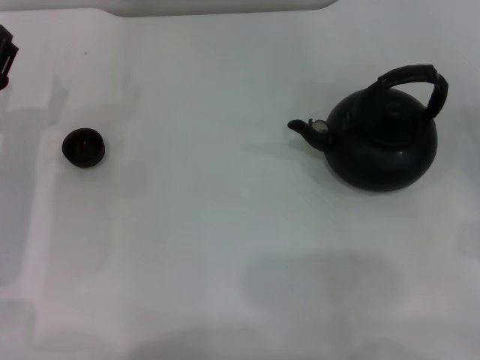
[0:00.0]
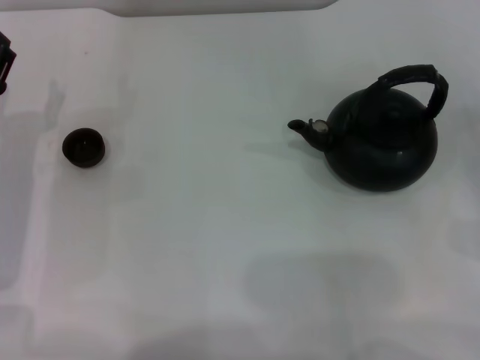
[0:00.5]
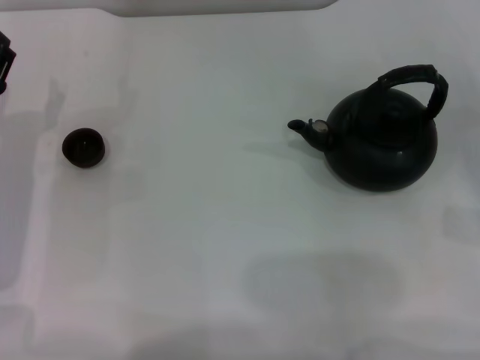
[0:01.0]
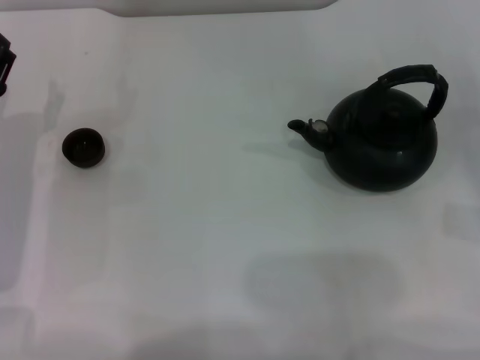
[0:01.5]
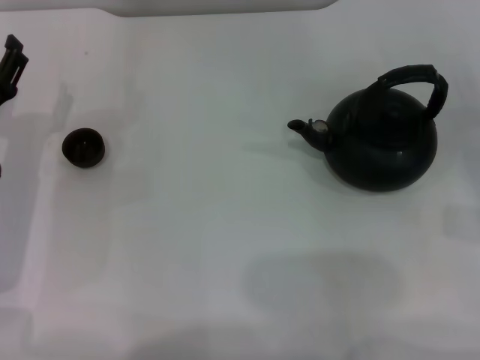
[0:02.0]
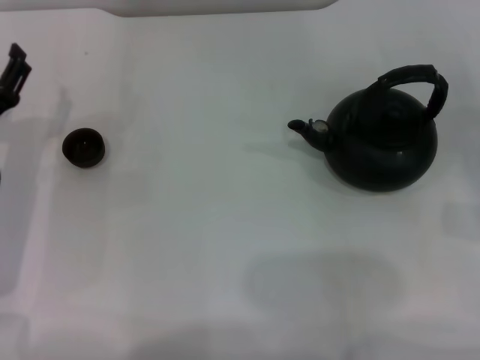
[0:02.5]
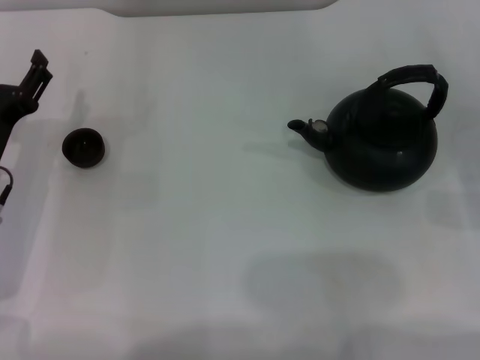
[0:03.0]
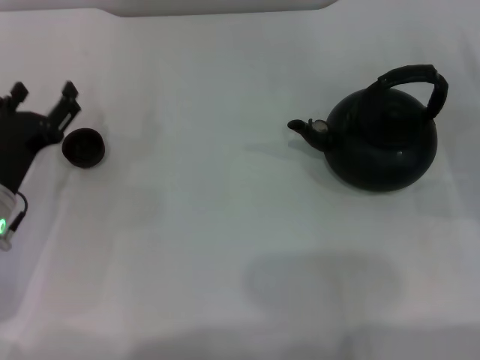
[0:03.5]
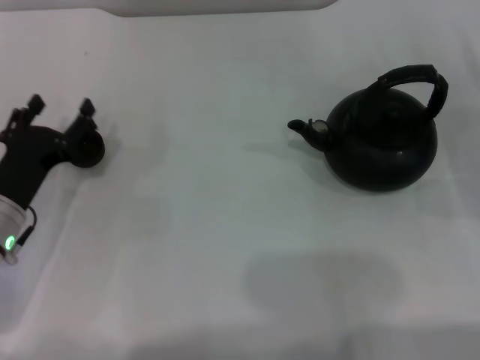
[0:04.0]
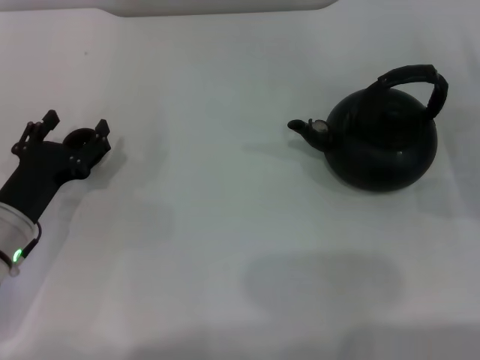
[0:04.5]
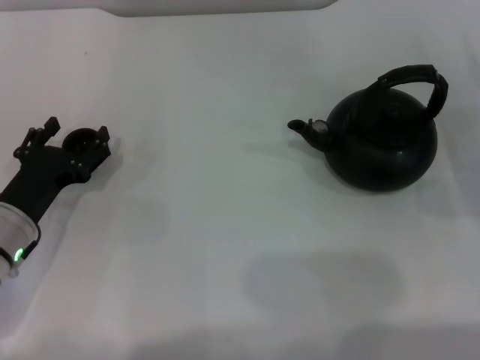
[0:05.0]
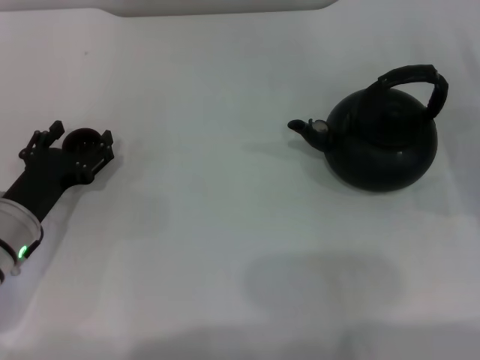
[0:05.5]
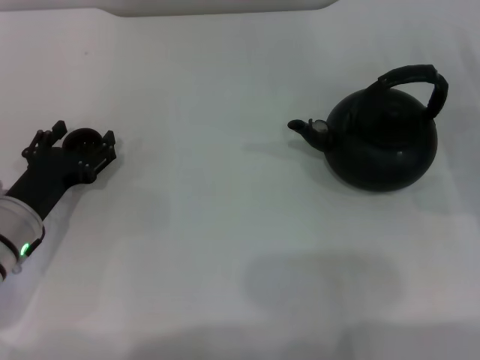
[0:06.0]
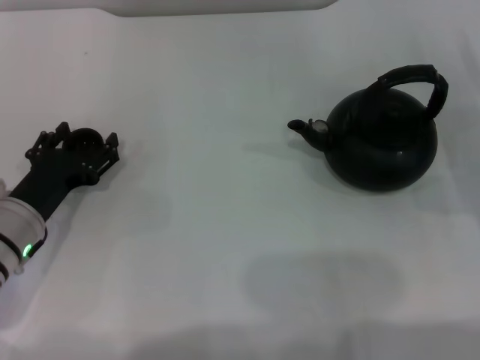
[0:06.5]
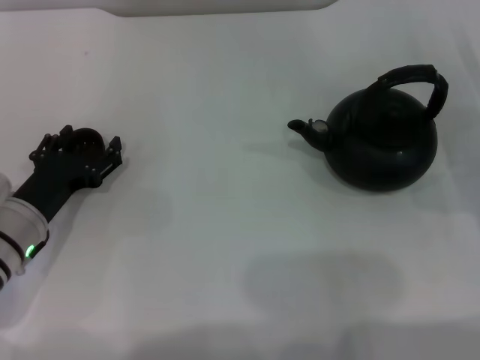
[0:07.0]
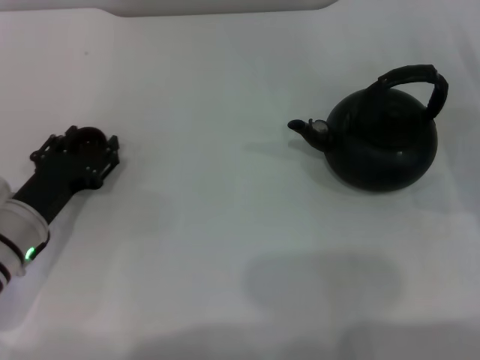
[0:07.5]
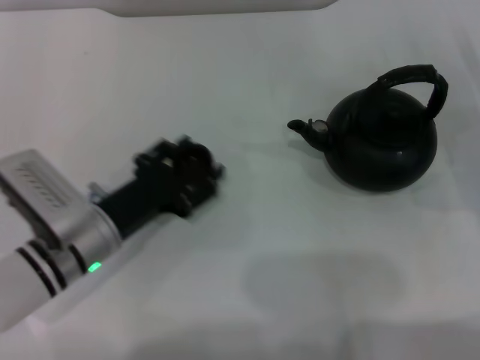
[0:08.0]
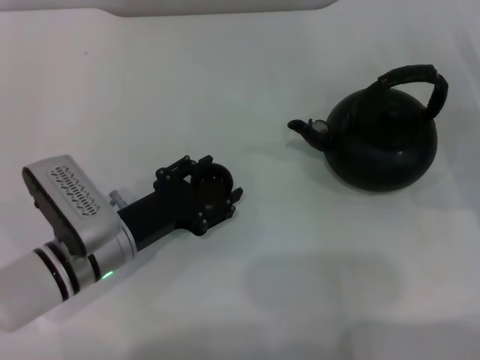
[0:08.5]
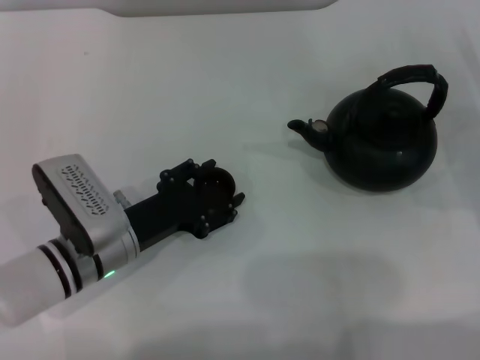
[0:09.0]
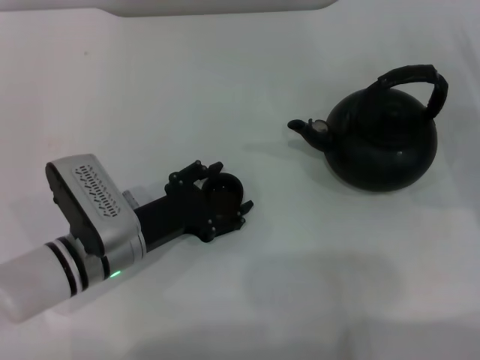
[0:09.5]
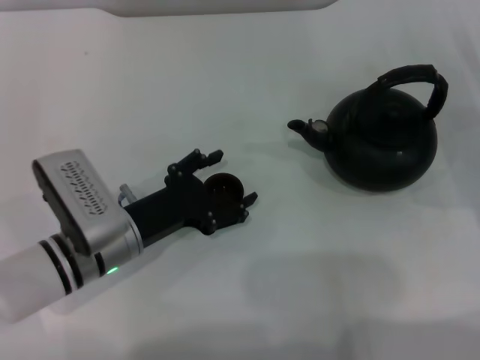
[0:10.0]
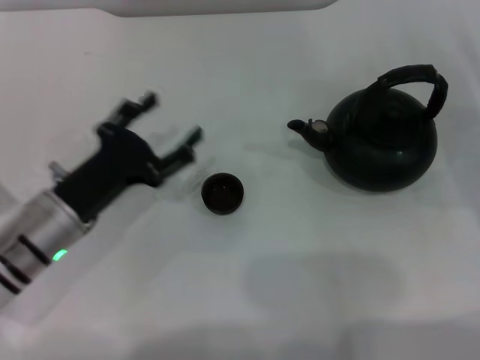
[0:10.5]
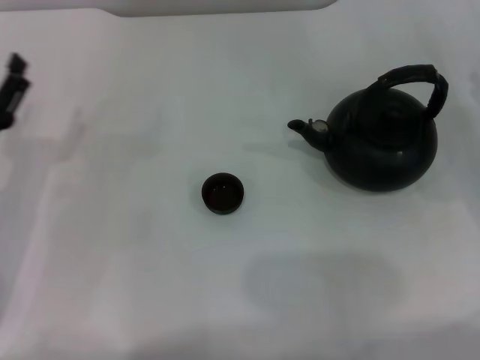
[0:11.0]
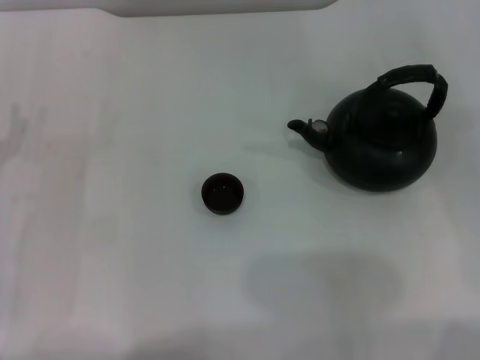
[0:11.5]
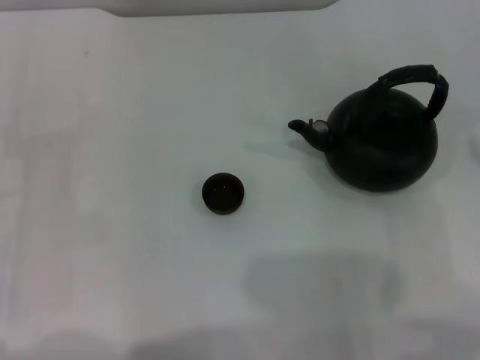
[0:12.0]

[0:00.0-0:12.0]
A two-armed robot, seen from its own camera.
Task of the whole recording: Grasp the handle of the teapot with one hand and pour tea into the teacup.
Step, 0:00.0 to 0:07.5: Pick up the teacup with the left gripper.
Step, 0:08.0 to 0:10.0: Place the teacup in the center of view with the left gripper.
0:02.0 to 0:04.0: The left gripper ends up approximately 5 cm from where it was.
0:04.0 to 0:06.0: The grippers make only small movements.
0:06.0 to 0:08.0: The left gripper moves to the right, about 5 cm, and closes up.
0:08.0 to 0:10.0: The left gripper opens up.
0:10.0 to 0:12.0: The right gripper goes approximately 15 cm upward. The left gripper heads to the left, covering about 15 cm.

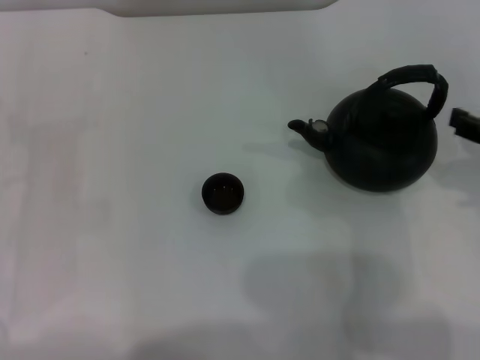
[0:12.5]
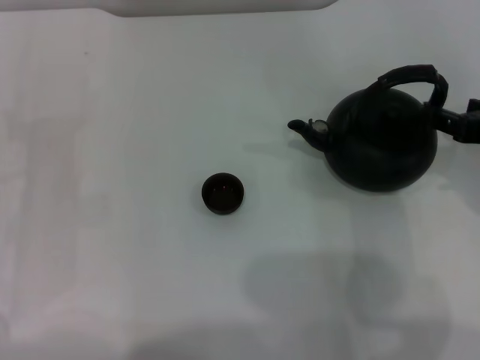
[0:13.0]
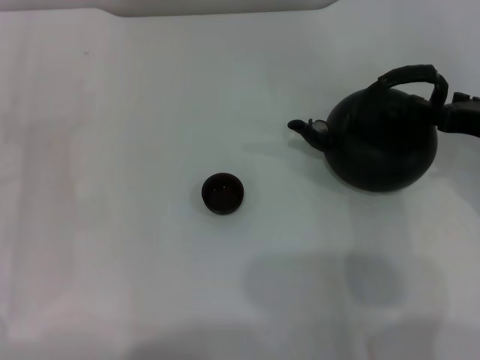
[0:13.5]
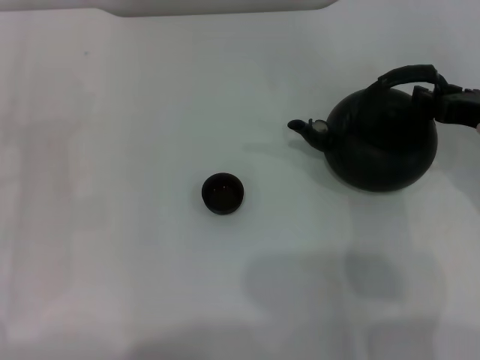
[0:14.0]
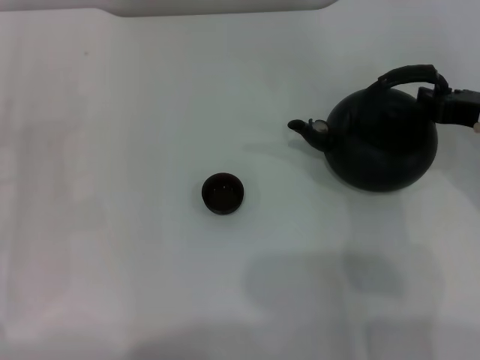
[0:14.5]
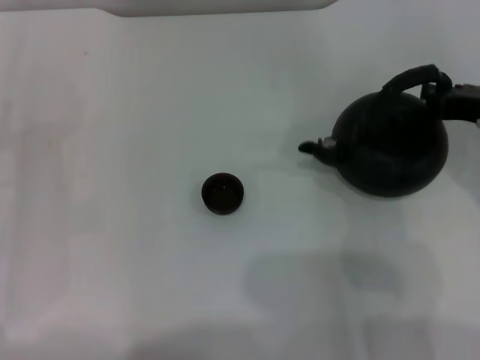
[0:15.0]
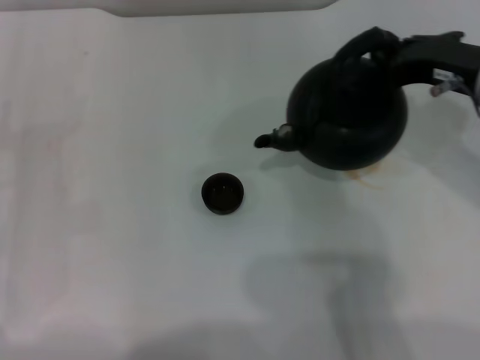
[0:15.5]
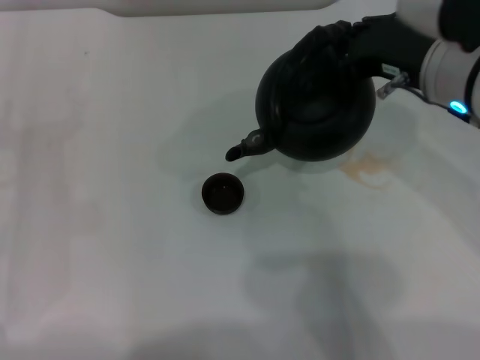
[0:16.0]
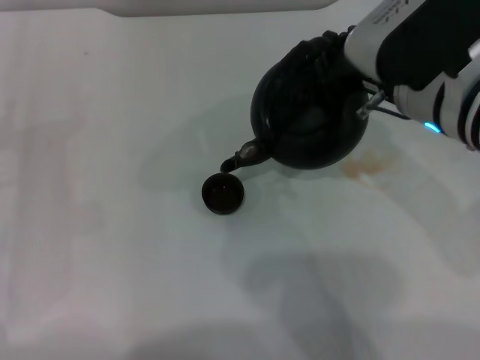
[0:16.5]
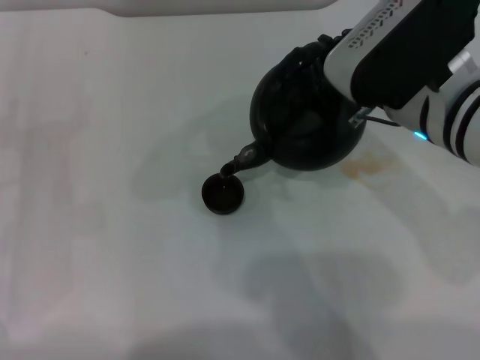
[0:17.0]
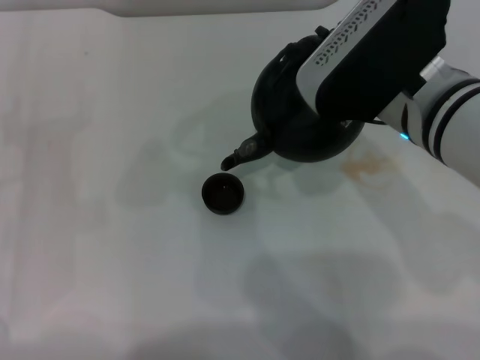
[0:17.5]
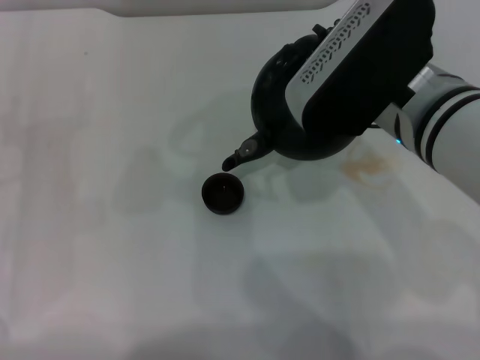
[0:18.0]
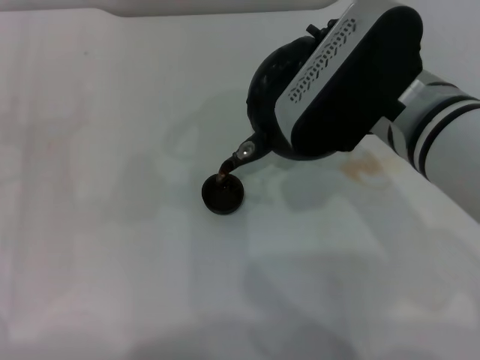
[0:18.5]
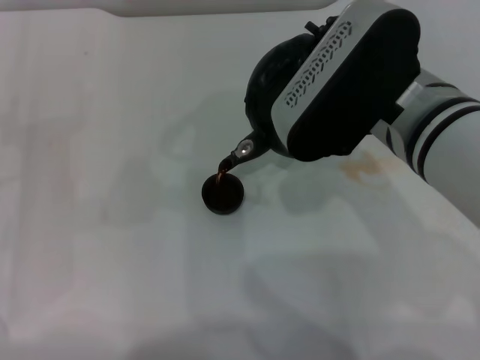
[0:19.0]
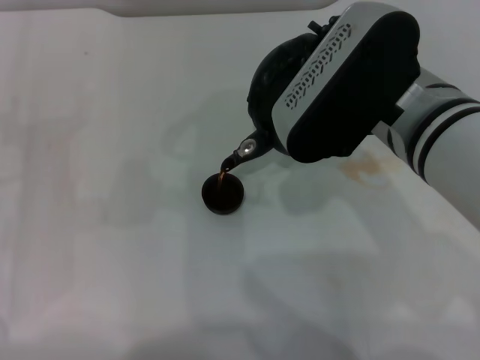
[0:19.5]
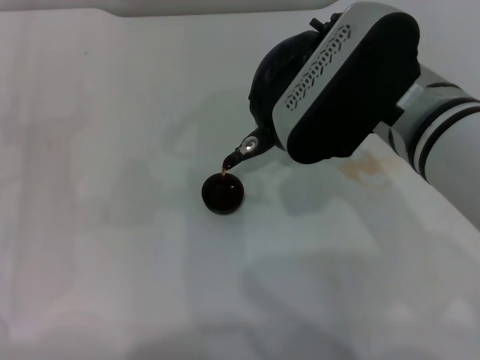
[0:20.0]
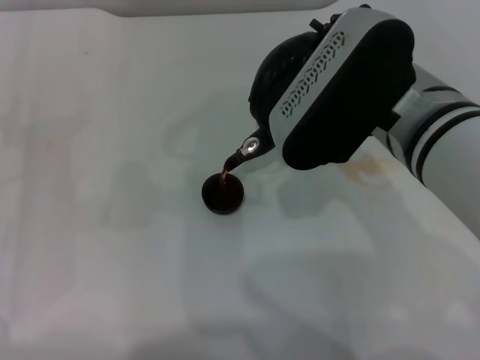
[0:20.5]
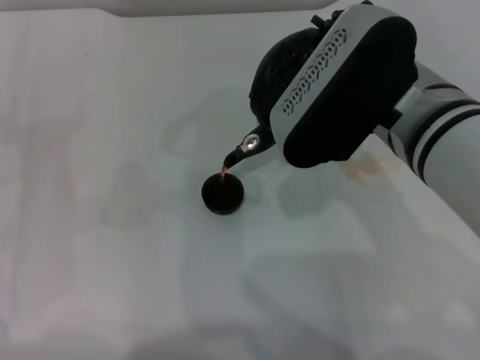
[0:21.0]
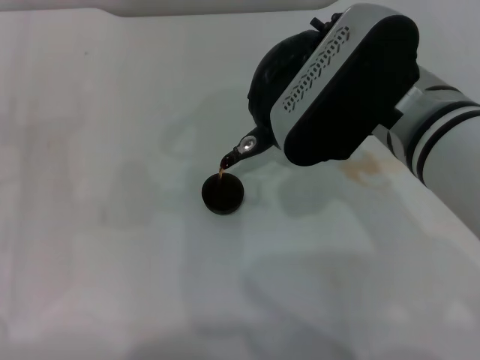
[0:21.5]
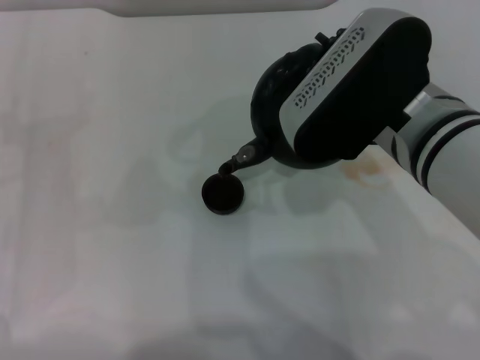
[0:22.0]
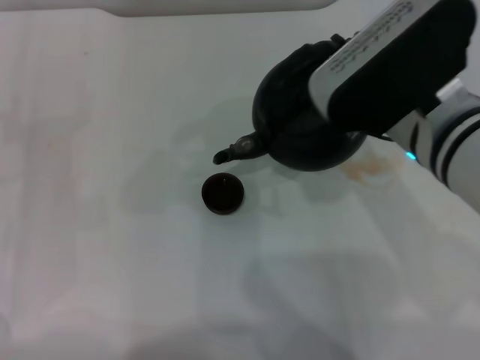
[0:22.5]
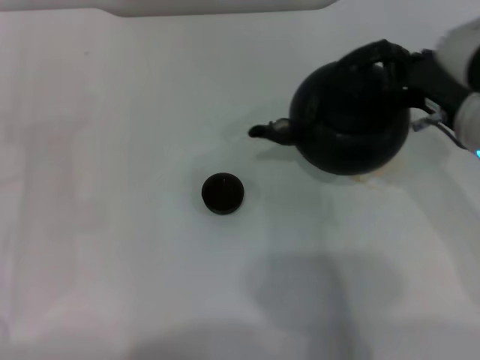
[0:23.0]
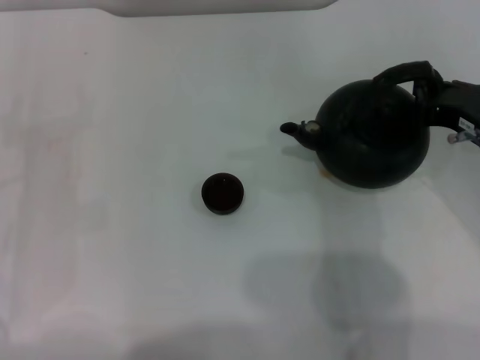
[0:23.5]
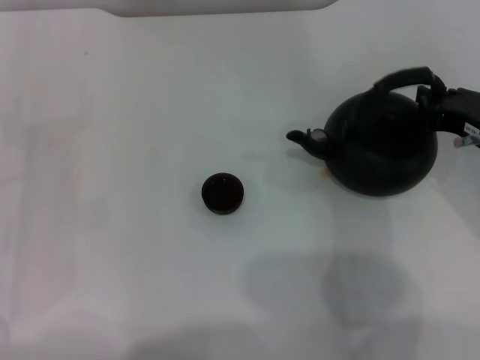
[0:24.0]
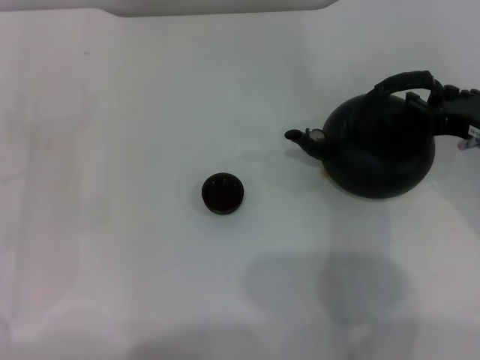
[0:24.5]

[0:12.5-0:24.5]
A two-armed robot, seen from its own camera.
Task of the whole recording: Grasp the handle of the teapot with one hand and pour tea into the teacup.
Step, 0:12.5 to 0:15.0: Pick up the teapot with the right gripper.
Step, 0:15.5 to 0:22.5: Pour tea into the teacup with the right gripper.
0:12.5 to 0:14.5: The right gripper shifts some 5 cm forward, and closes.
0:14.5 to 0:16.5: The right gripper goes some 10 cm to the left.
0:16.5 to 0:18.5: The grippers stay close to where they were, moving slightly.
0:18.5 to 0:20.5: Both grippers stay put.
0:20.5 to 0:22.5: There are only small adjustments of the grippers.
0:22.5 to 0:24.5: The right gripper goes about 10 cm to the right.

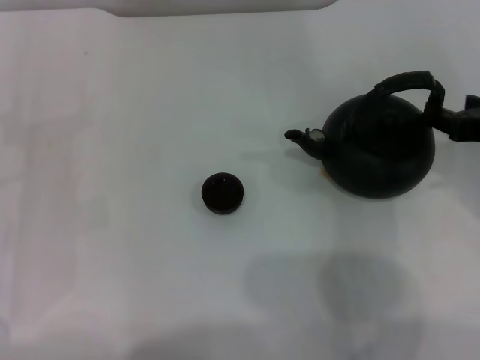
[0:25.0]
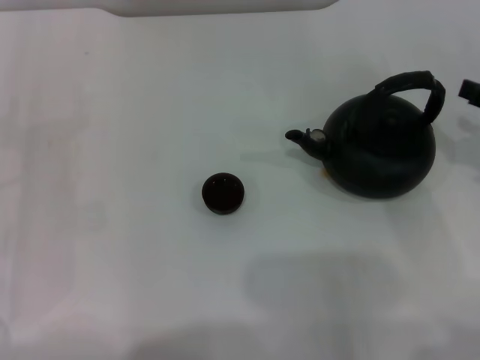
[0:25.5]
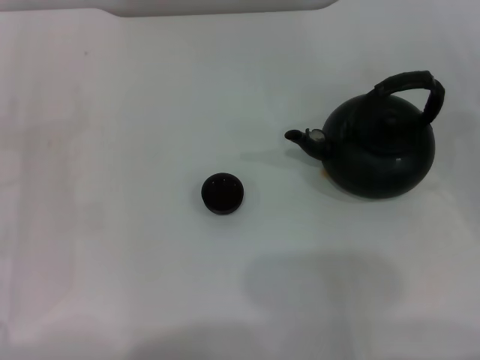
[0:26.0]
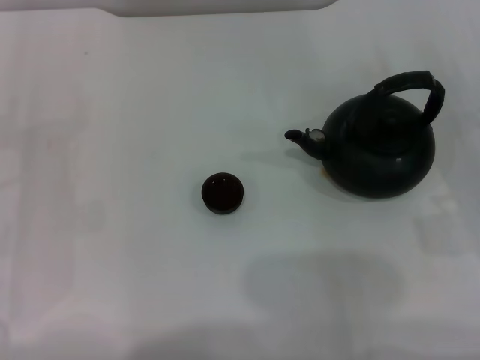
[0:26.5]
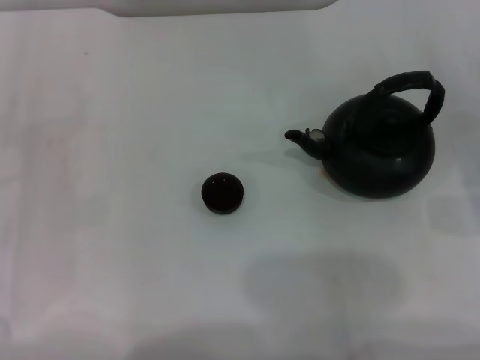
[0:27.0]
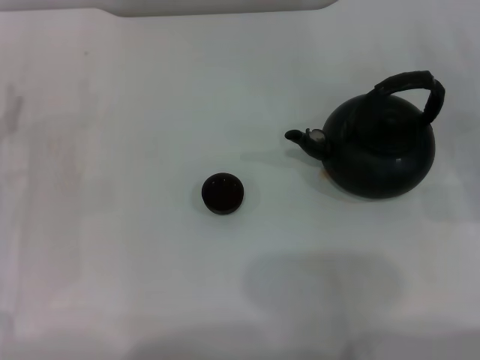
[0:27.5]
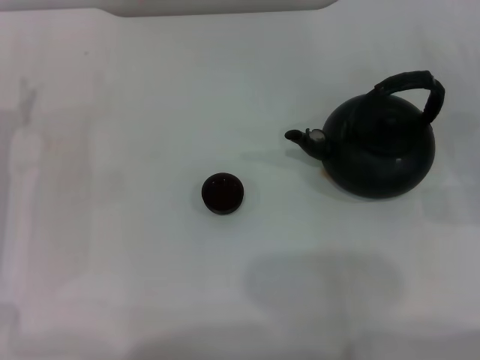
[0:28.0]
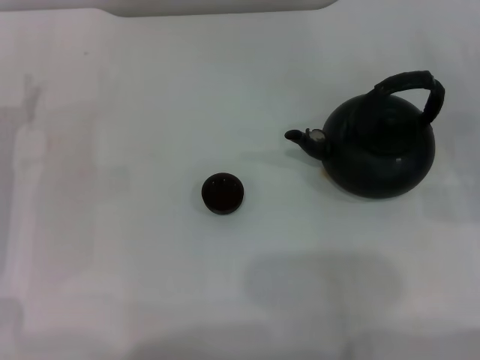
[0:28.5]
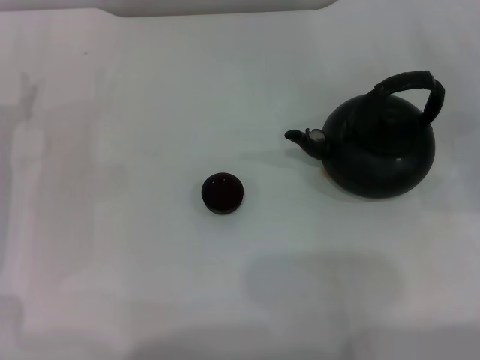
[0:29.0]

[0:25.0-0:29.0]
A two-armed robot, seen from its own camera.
Task of the whole recording: Grasp the handle of the teapot with one hand and pour tea into the teacup.
0:25.0 to 0:27.0: The right gripper travels to the right and downward by about 15 cm.
